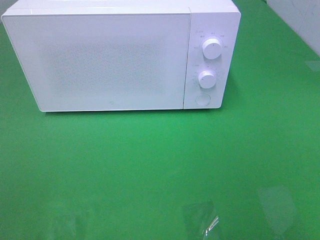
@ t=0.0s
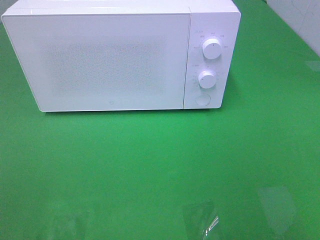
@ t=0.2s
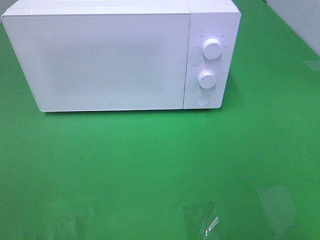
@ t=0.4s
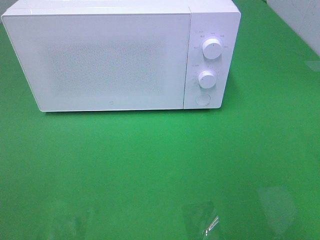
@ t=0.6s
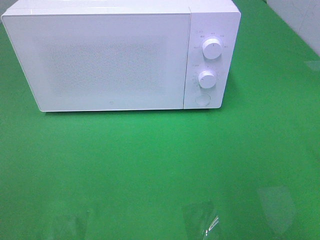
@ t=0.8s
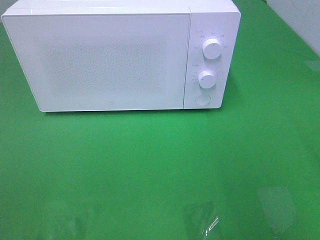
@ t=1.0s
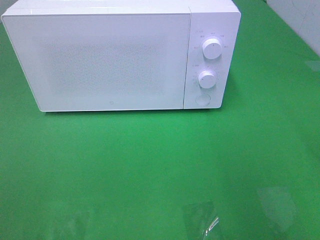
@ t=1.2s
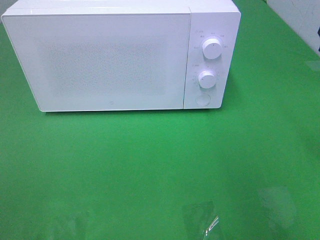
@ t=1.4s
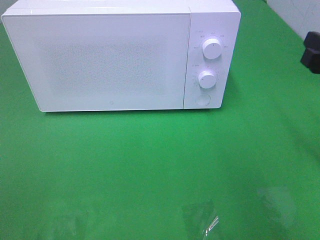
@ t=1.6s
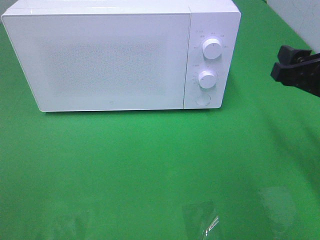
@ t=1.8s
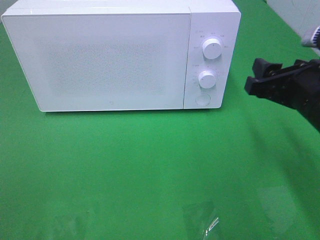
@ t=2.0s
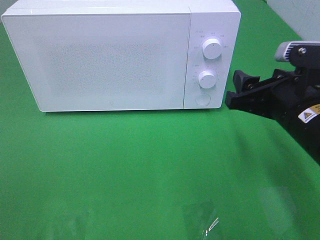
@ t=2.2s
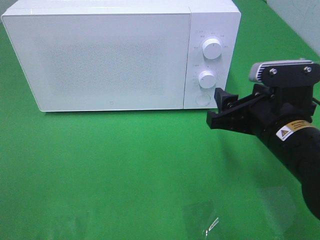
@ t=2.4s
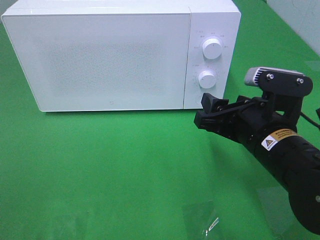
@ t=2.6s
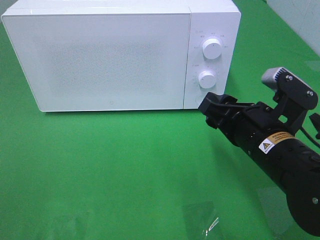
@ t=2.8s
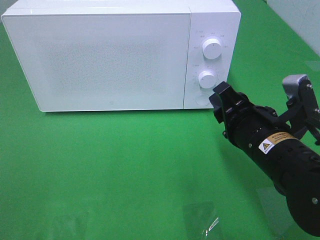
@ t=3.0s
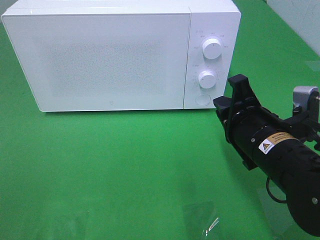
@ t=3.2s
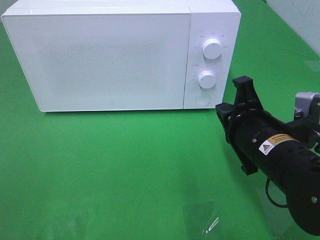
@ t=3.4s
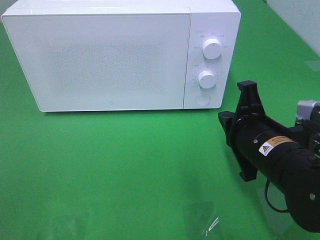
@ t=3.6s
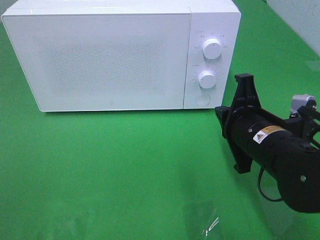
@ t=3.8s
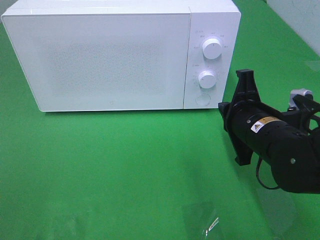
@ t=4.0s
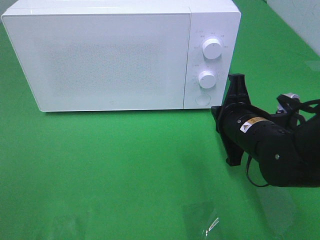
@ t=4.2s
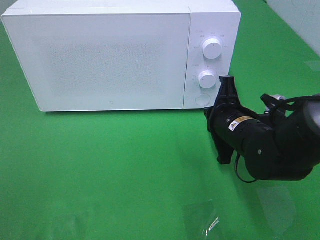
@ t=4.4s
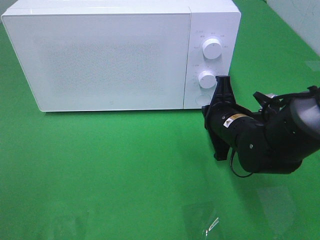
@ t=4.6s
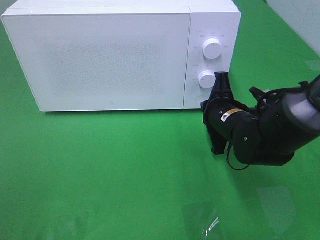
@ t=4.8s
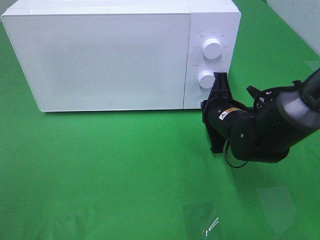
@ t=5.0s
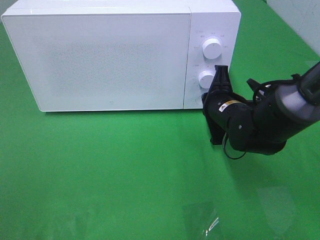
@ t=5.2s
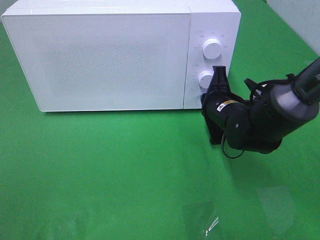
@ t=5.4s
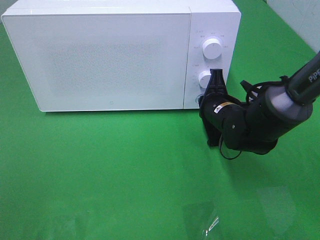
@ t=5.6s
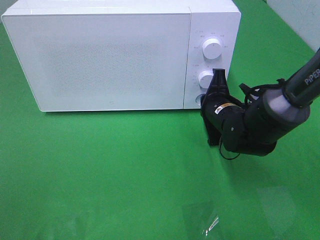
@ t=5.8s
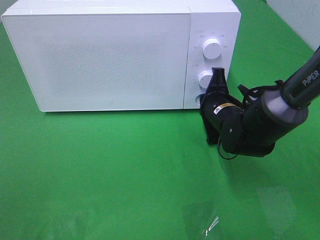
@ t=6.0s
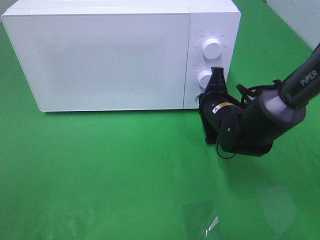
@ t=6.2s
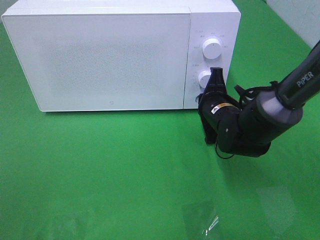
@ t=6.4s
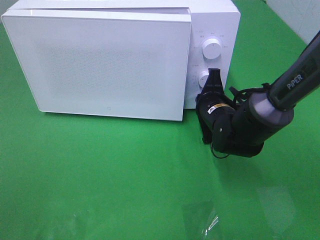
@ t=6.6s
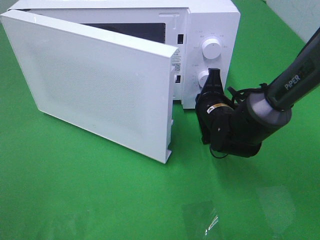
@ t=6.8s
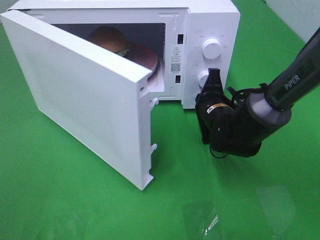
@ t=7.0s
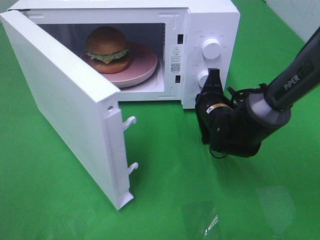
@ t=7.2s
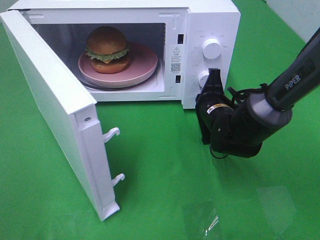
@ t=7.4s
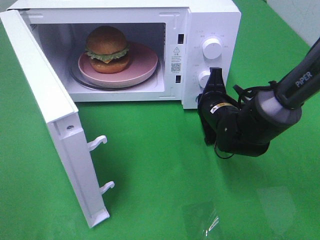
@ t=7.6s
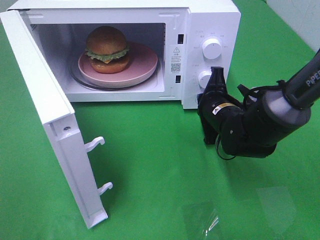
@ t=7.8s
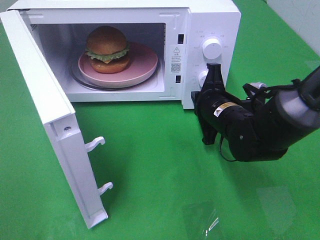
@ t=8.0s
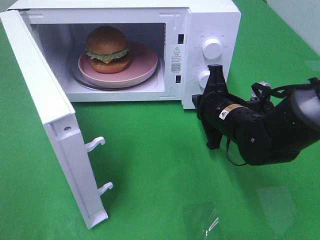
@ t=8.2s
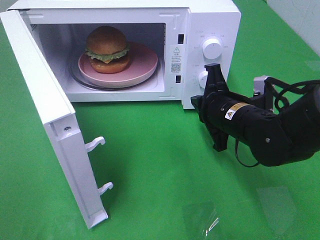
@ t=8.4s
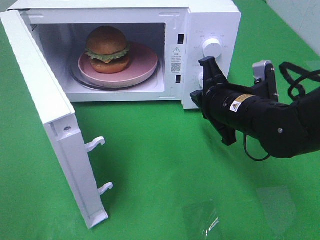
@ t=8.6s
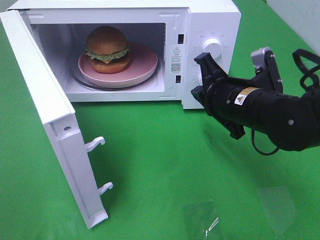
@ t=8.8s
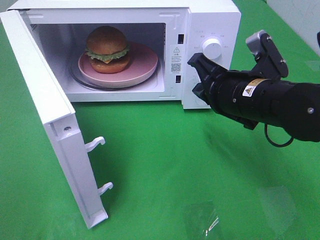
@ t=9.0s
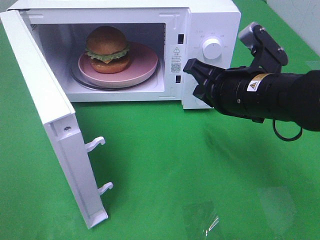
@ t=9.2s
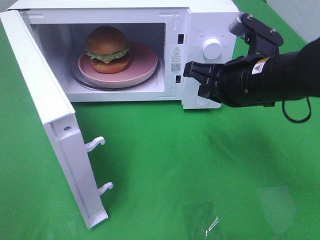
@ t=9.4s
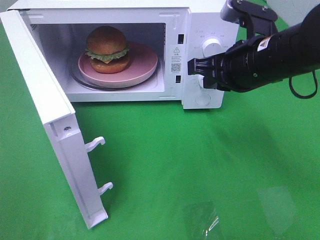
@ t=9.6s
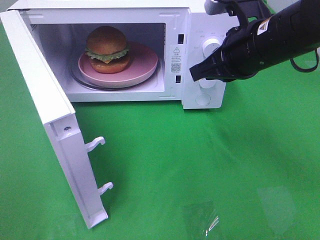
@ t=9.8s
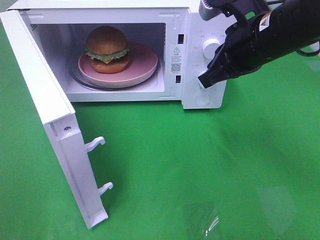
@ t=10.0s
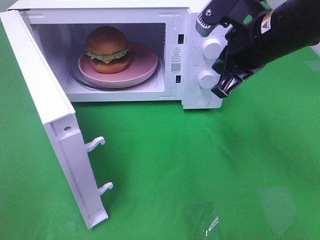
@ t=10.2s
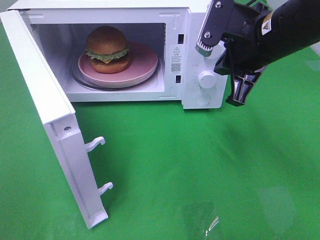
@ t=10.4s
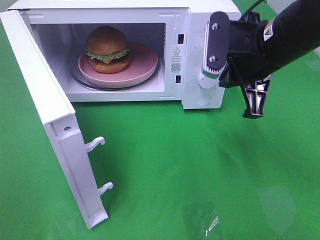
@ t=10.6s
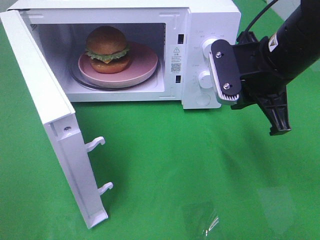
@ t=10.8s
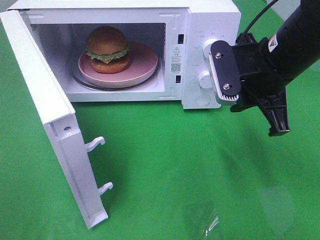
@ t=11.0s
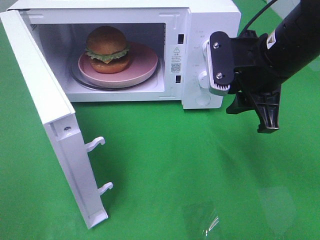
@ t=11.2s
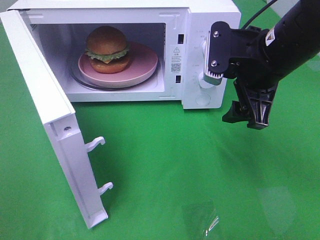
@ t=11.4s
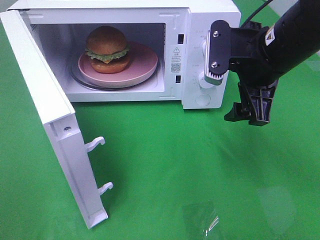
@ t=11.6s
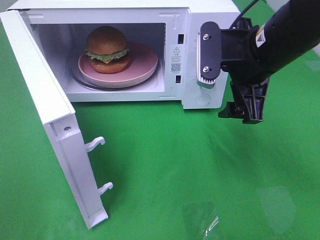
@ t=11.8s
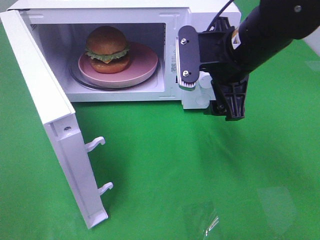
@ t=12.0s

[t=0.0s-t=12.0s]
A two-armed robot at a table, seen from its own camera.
Task of the whole recording: Heat the burger.
Step, t=0.0s to t=8.0s: Right hand: press the switch.
t=0.0s to t=1.6s: The right gripper moves forward, about 20 cm.
t=1.6s to t=3.0s: The right gripper shifts some 15 cm to the left and downward.
t=3.0s to t=4.4s: The right gripper is displaced forward by about 5 cm, and closes.
t=4.4s to t=6.0s: The right gripper shifts about 5 cm forward.
t=7.6s to t=9.0s: The right gripper travels upward and backward by roughly 15 cm.
t=9.0s to t=10.4s: The right gripper travels upward by roughly 5 cm.
t=10.4s to t=12.0s: The right gripper opens.

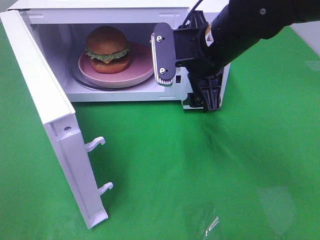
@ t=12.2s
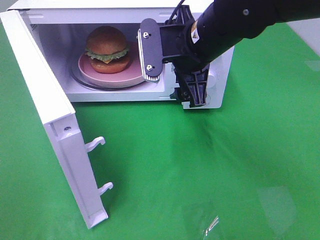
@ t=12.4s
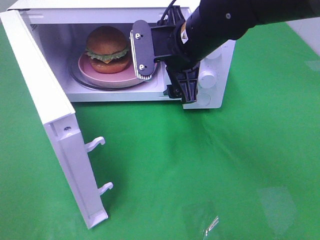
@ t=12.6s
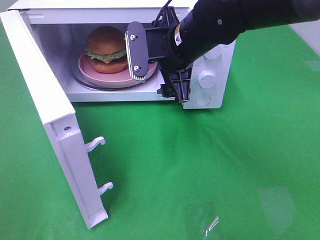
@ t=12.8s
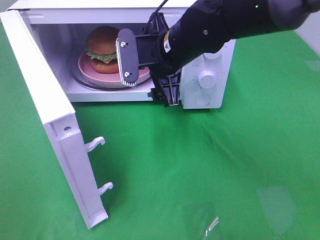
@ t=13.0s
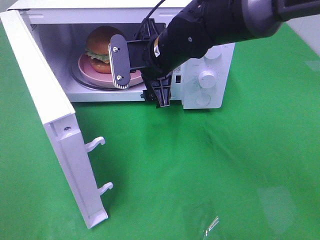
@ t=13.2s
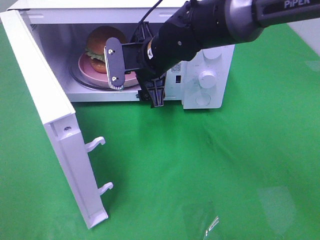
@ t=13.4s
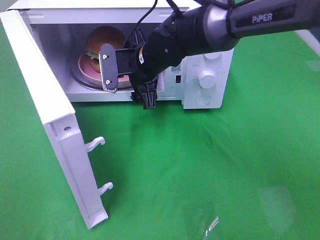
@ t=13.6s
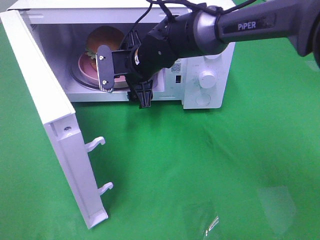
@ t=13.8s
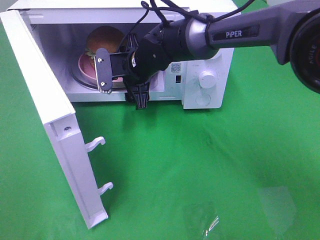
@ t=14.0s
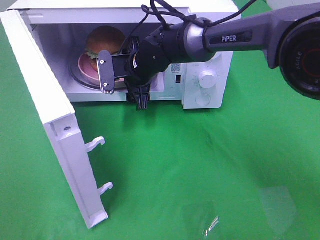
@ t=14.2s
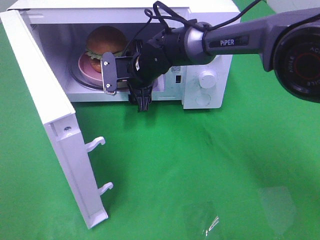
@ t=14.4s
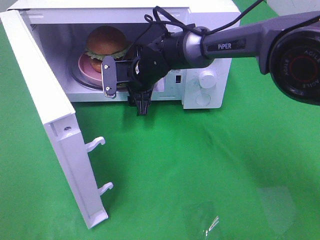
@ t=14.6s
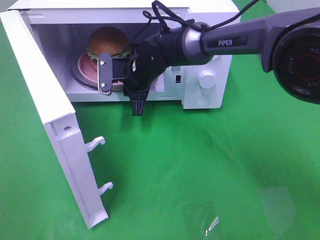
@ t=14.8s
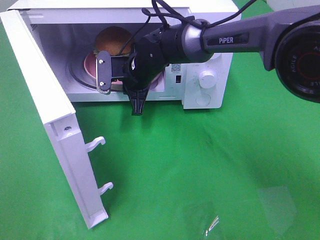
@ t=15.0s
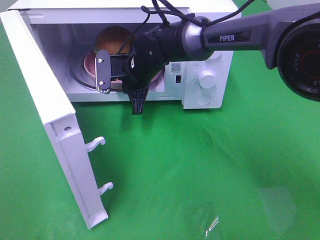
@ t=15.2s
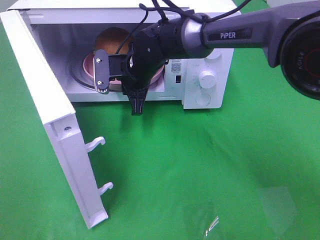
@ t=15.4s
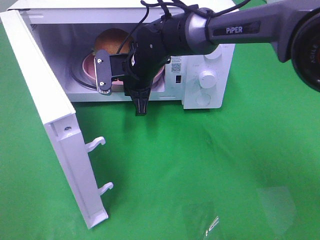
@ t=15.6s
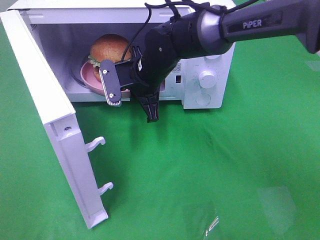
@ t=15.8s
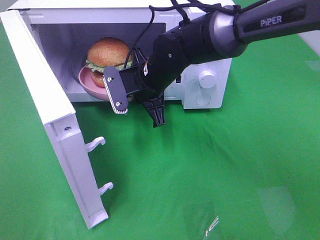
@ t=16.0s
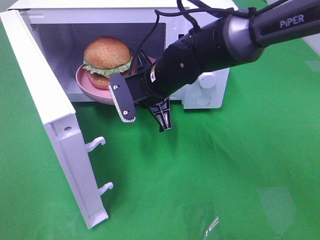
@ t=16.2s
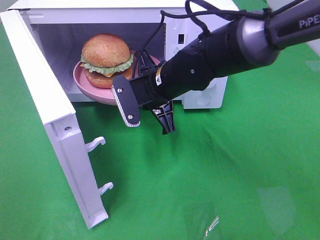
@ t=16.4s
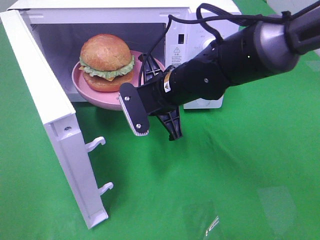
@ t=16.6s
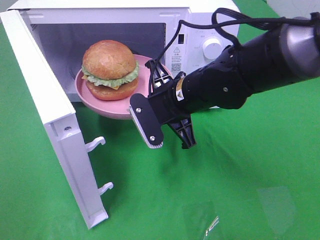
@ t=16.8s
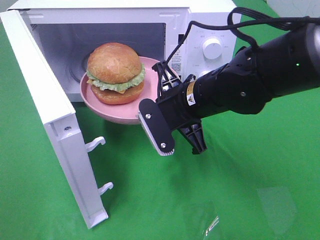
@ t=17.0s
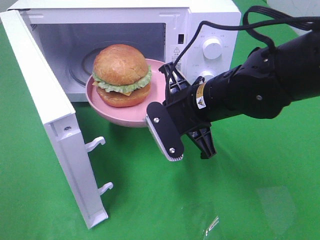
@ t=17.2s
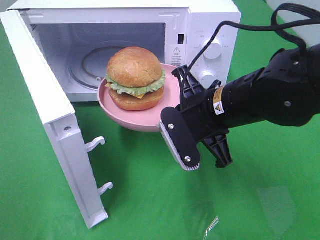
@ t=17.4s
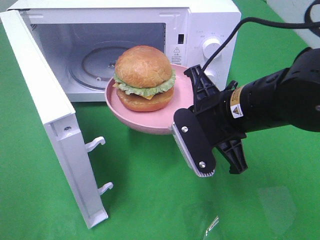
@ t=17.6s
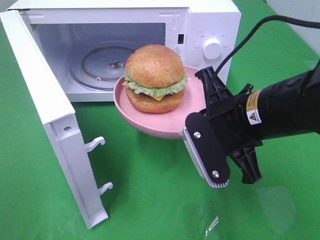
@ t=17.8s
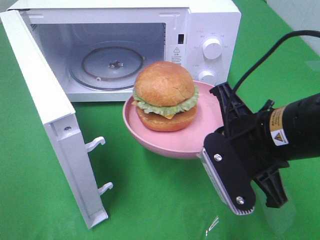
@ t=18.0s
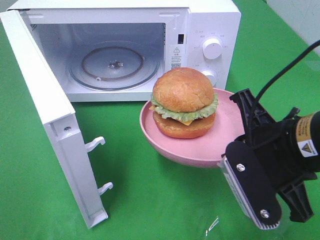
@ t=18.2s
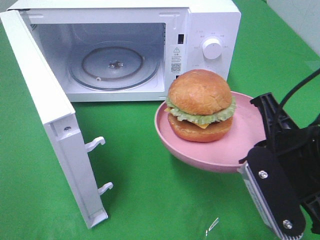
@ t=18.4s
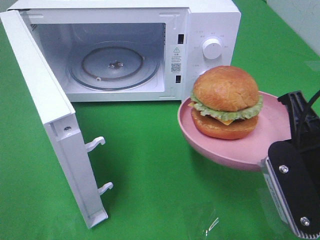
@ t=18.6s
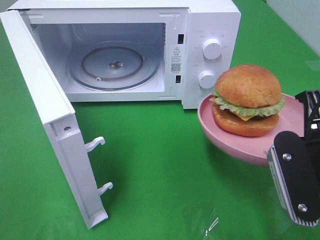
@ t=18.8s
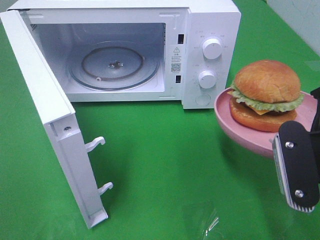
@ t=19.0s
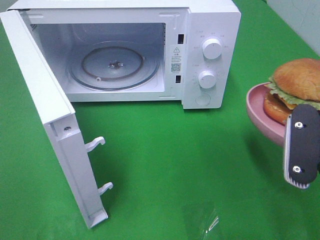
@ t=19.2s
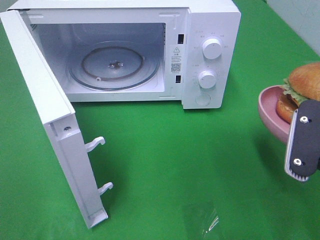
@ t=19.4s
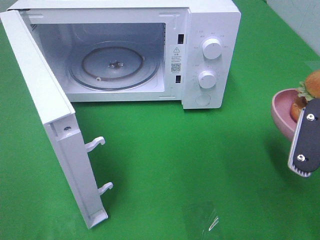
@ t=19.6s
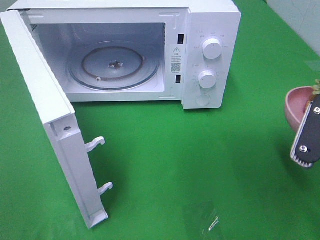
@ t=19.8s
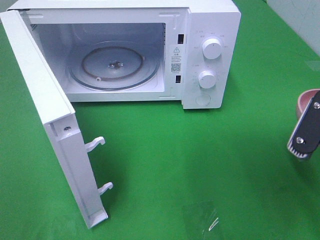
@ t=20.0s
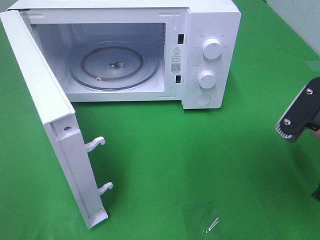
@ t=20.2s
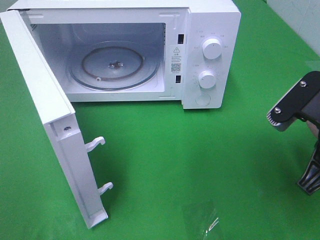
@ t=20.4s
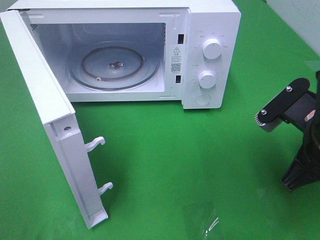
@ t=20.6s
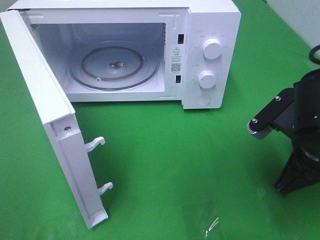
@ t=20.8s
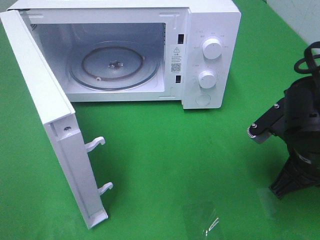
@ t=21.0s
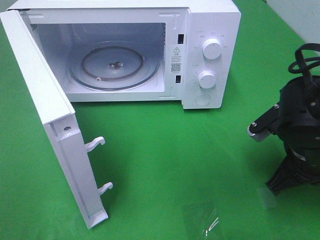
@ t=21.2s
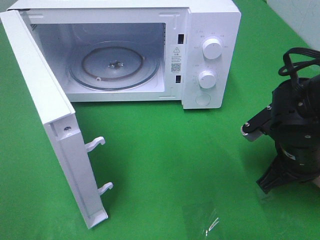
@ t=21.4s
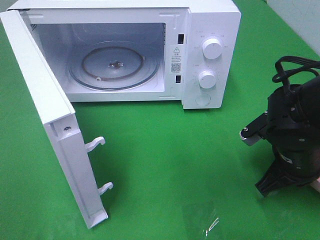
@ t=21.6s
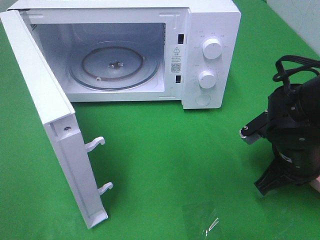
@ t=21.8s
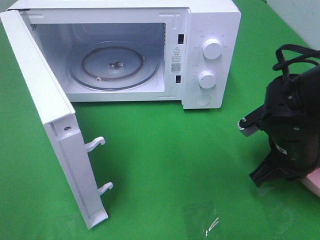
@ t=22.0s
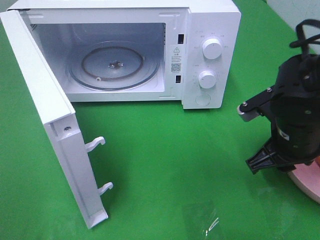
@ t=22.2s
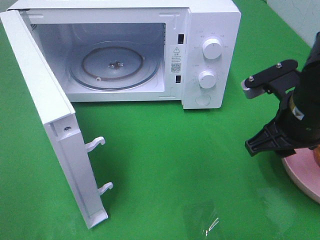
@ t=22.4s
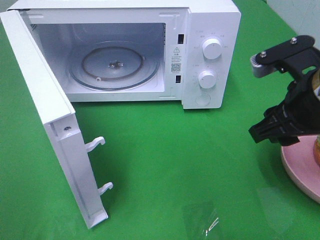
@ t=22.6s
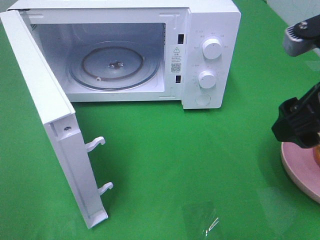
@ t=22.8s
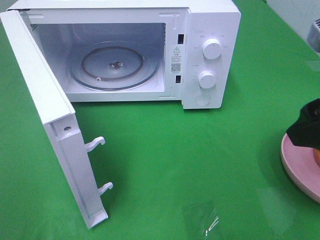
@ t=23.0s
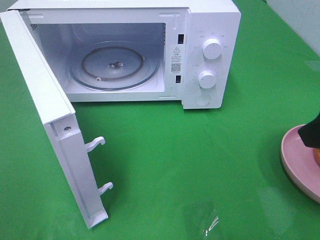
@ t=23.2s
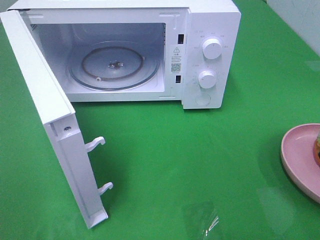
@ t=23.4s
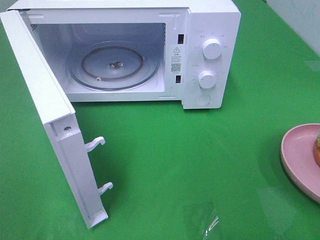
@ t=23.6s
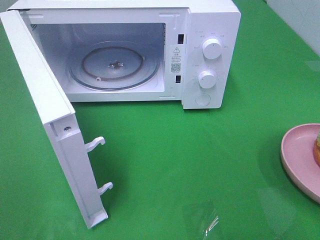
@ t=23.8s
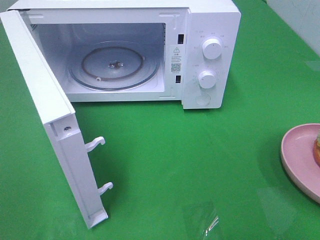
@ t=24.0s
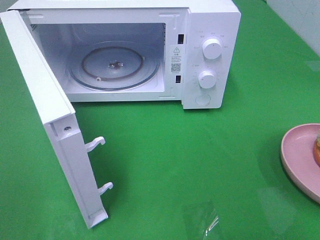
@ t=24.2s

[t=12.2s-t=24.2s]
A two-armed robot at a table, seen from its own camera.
Task of the whole recording: Heat the burger.
Step, t=12.2s to t=15.0s: Right hand: grab the plate with the hamburger.
Step, t=15.2s to t=22.2s: Right hand: place the plate on the table.
t=12.2s to t=13.8s: The right gripper moves to the left, forward and downward, roughly 15 cm.
t=13.8s to t=15.2s: The right gripper closes.
t=15.2s to t=16.6s: The right gripper travels backward and to the right by about 10 cm.
t=16.6s to t=18.2s: The right gripper goes some 20 cm backward and to the right.
t=18.2s to t=19.8s: The right gripper shifts about 5 cm to the right.
t=19.8s to t=21.2s: The right gripper travels downward and forward by approximately 10 cm.
t=21.2s to t=22.6s: The right gripper goes about 10 cm upward, and opens up.
t=22.6s to t=24.2s: The right gripper goes about 20 cm backward and to the right.
